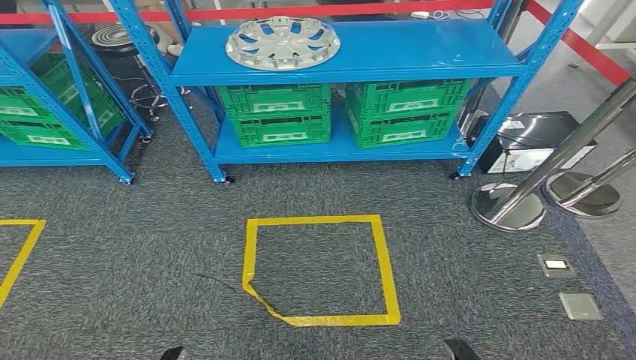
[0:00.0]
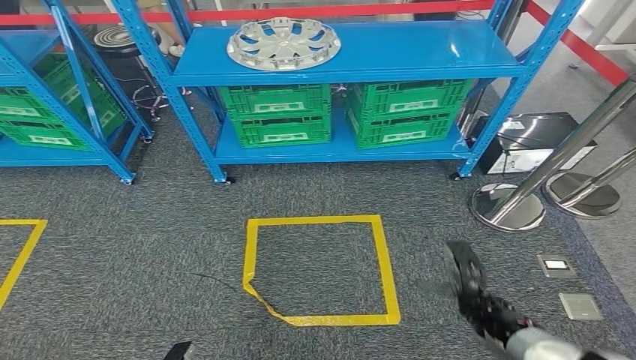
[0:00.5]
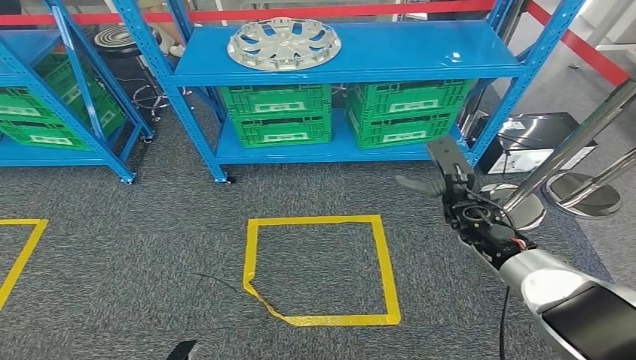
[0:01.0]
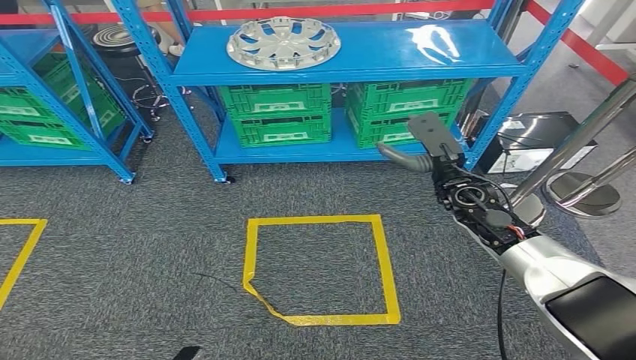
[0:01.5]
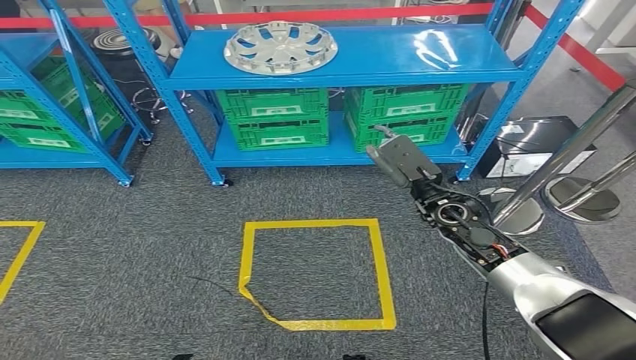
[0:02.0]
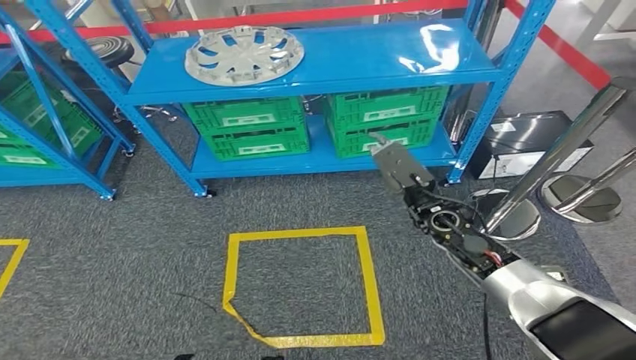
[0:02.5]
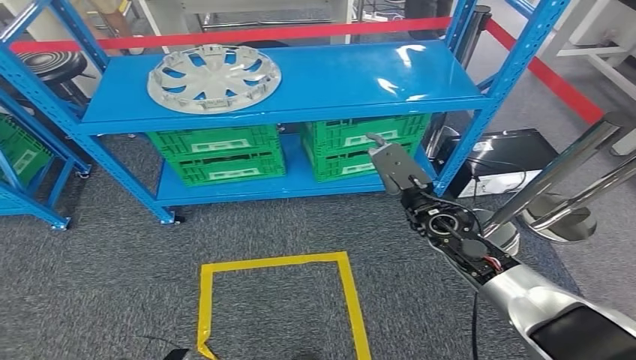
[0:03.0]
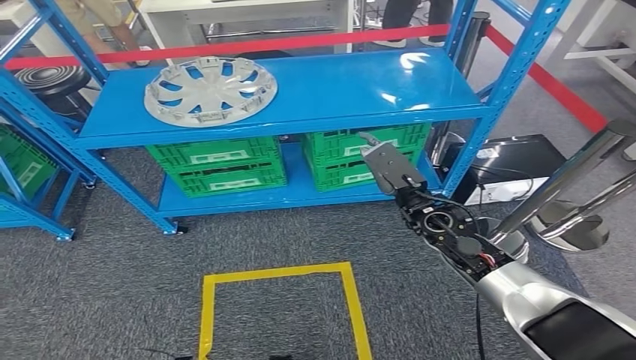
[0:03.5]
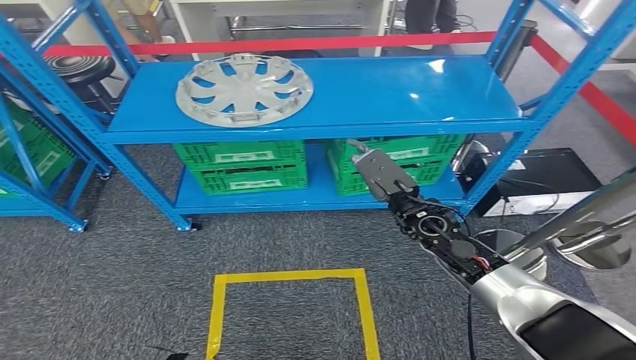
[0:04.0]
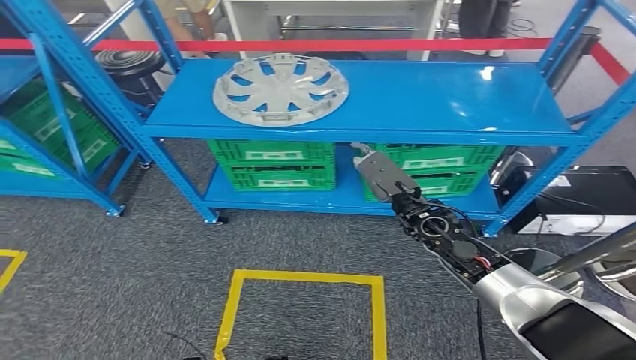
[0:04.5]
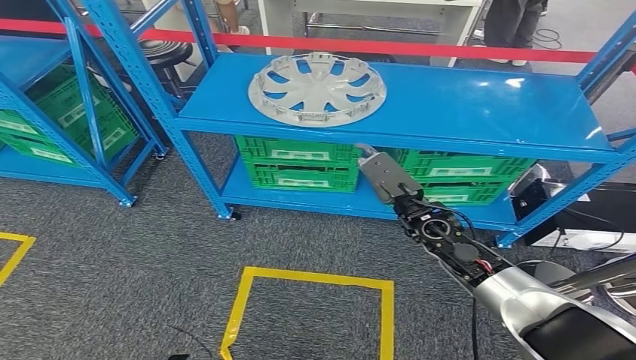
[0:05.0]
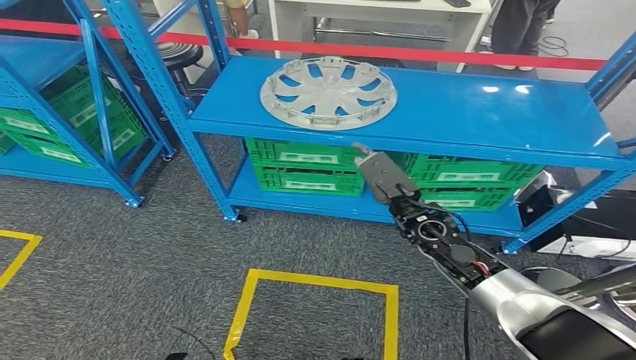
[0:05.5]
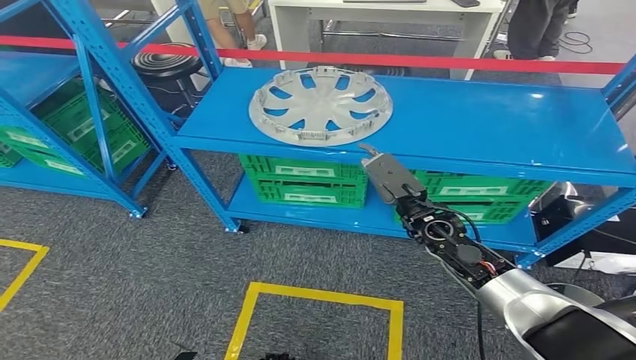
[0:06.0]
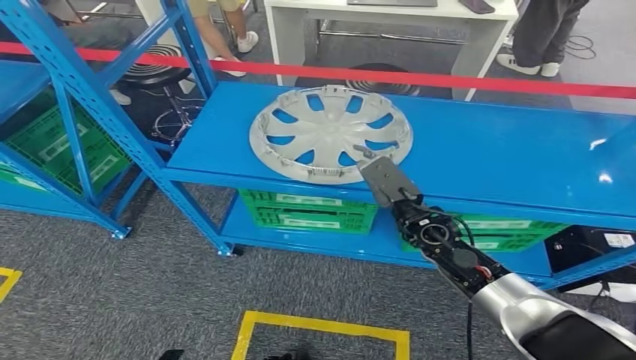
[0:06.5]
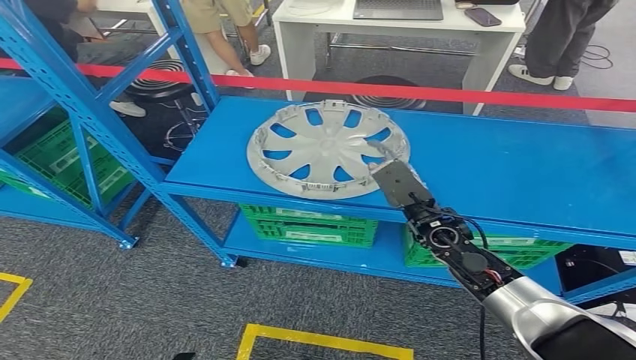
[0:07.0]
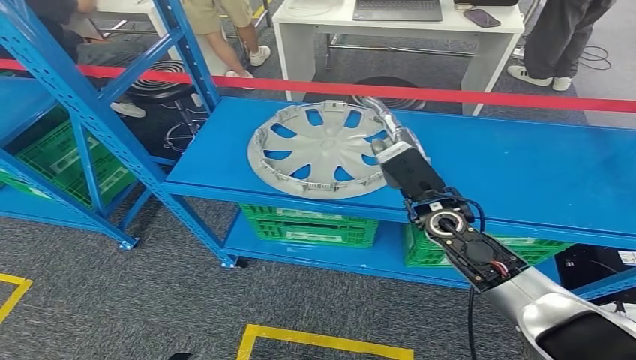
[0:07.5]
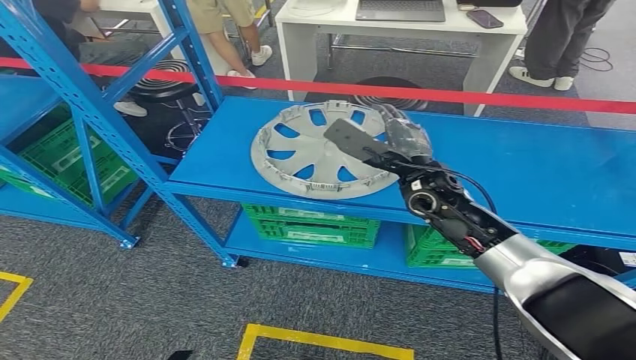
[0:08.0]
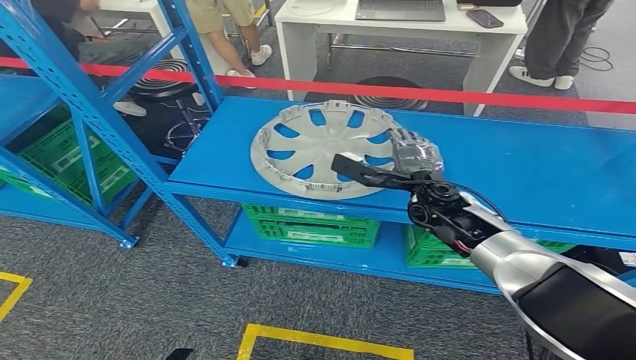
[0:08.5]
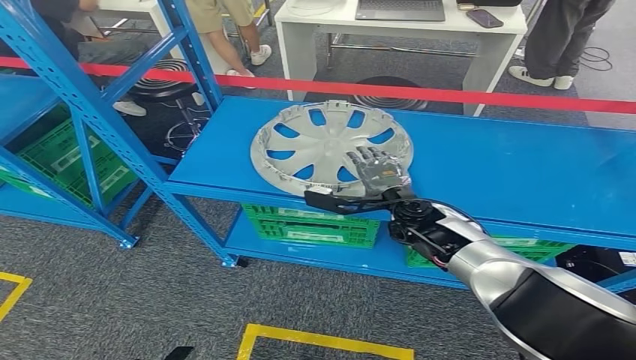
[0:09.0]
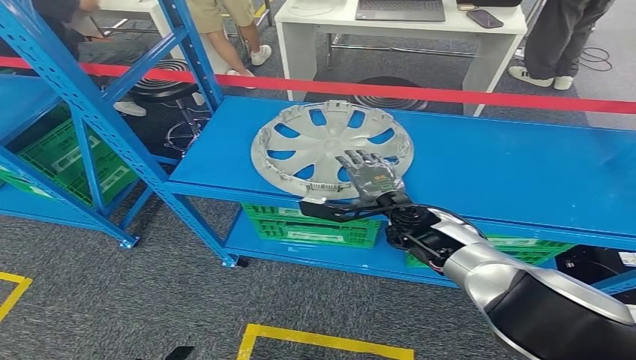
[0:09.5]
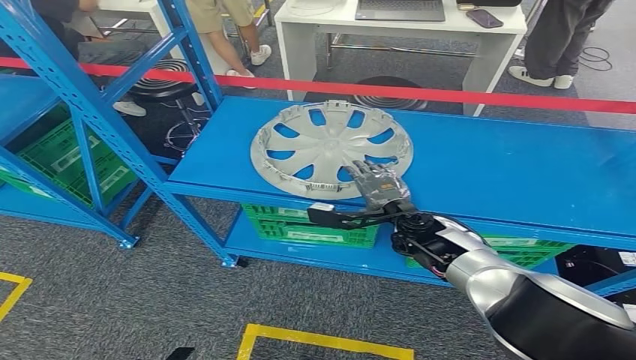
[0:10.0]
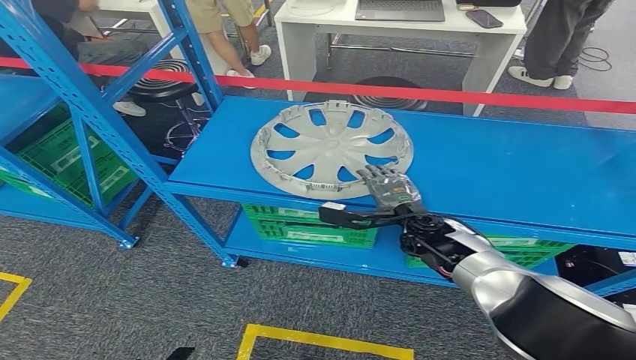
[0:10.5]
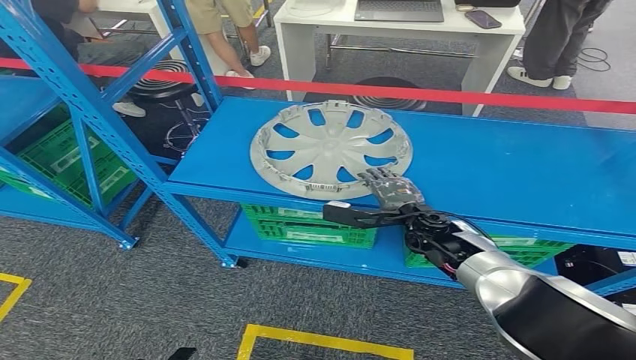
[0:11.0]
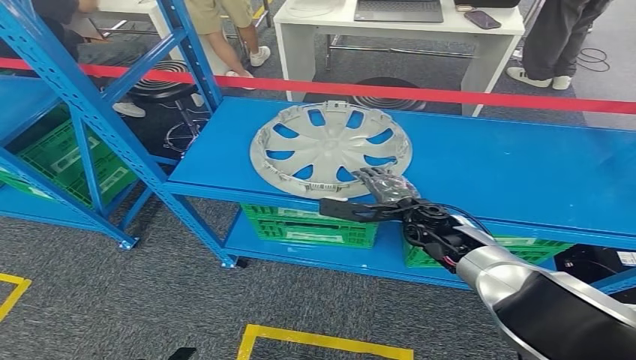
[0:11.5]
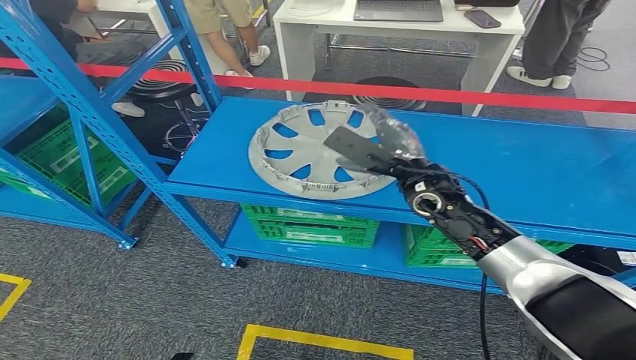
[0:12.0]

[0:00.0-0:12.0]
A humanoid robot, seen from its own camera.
0:08.0 to 0:10.0: The right hand travels downward by approximately 10 cm.
0:10.0 to 0:12.0: The right hand goes about 10 cm upward.

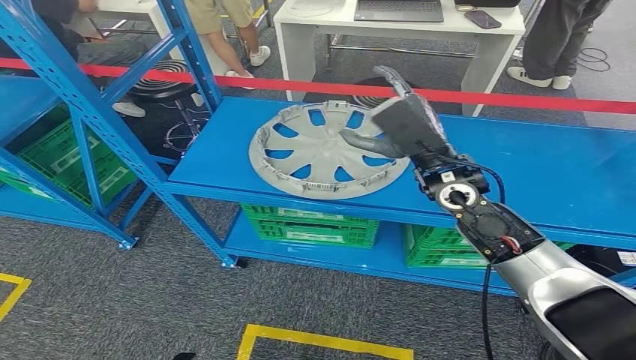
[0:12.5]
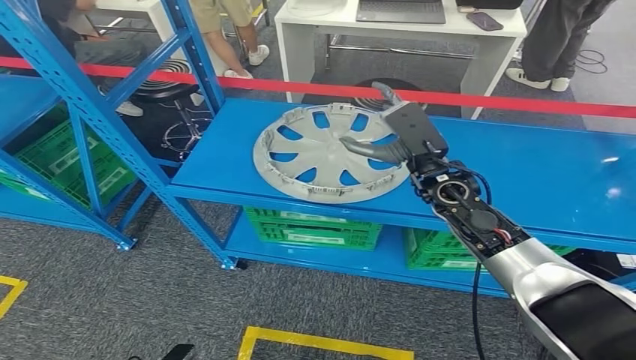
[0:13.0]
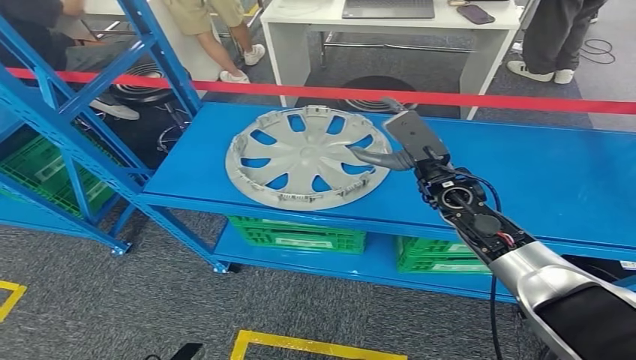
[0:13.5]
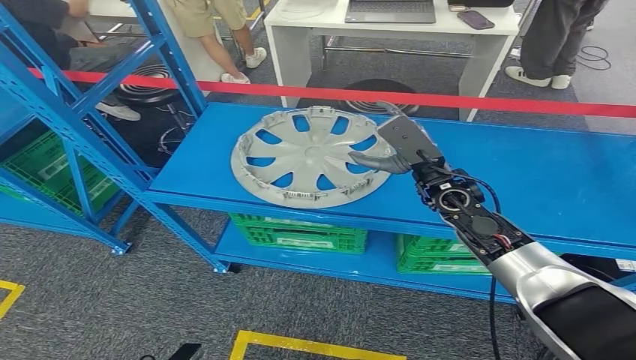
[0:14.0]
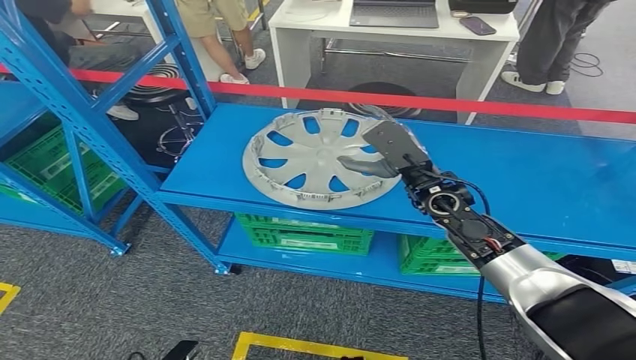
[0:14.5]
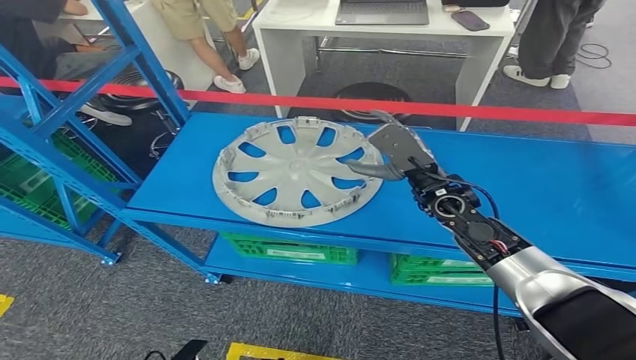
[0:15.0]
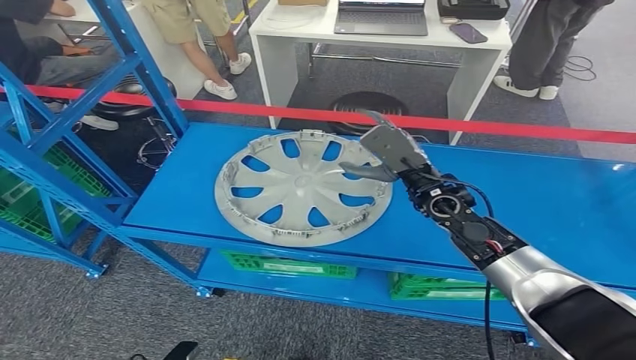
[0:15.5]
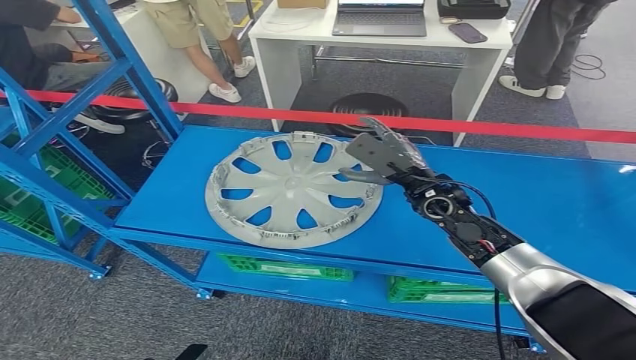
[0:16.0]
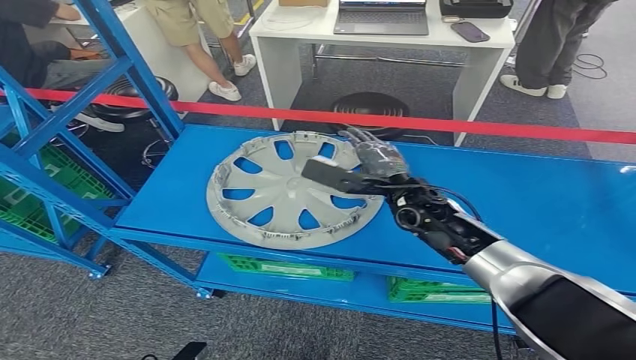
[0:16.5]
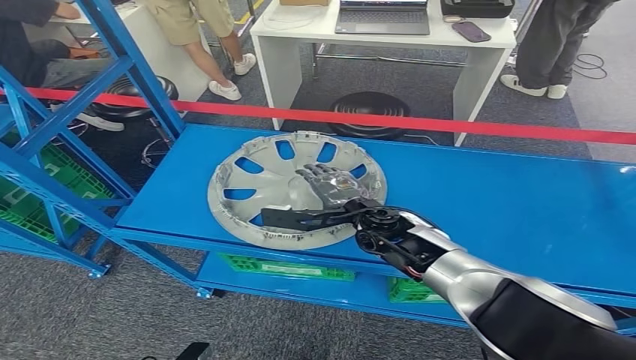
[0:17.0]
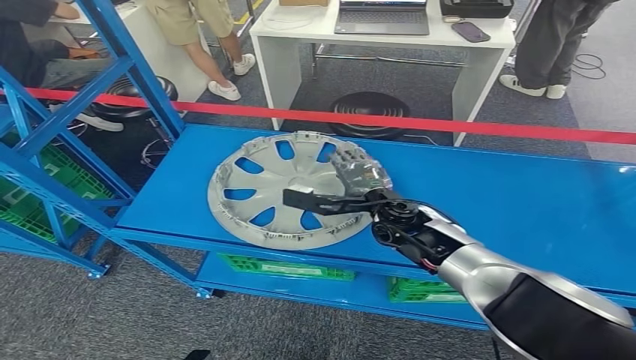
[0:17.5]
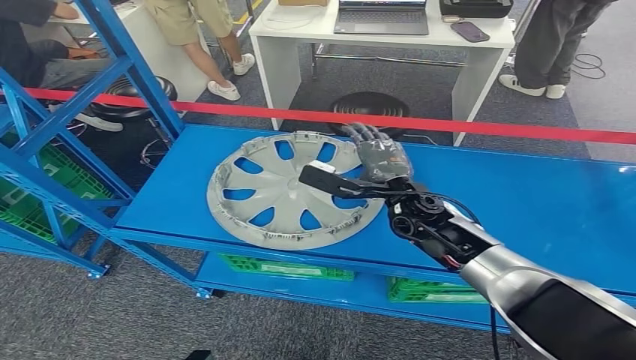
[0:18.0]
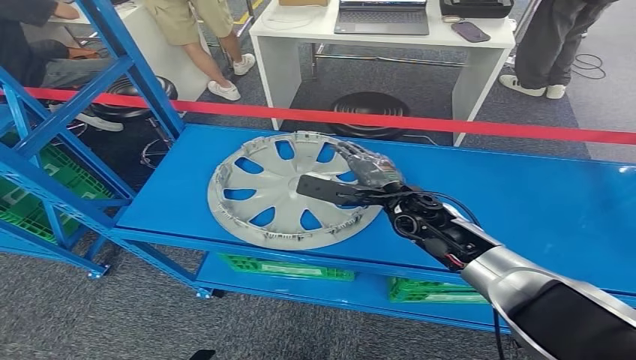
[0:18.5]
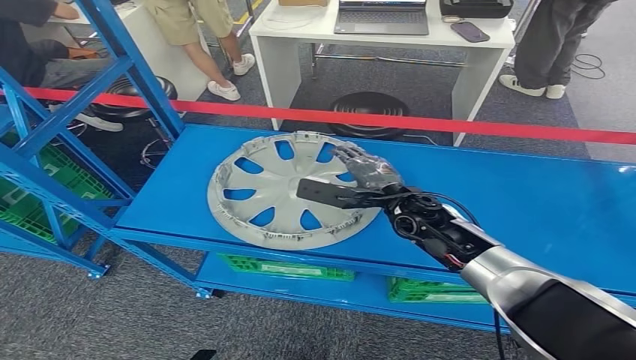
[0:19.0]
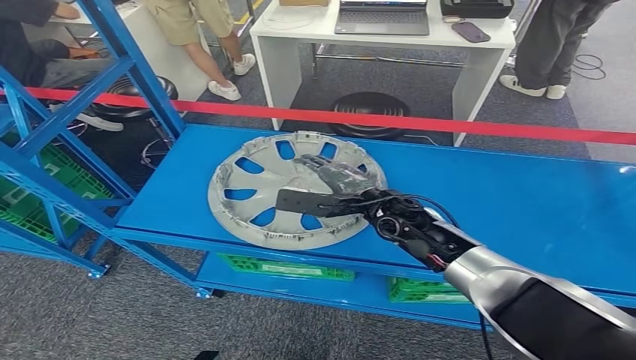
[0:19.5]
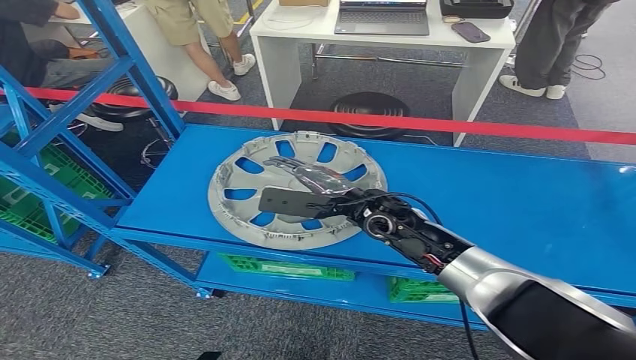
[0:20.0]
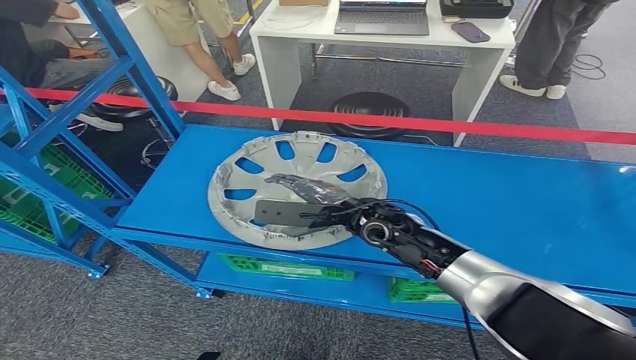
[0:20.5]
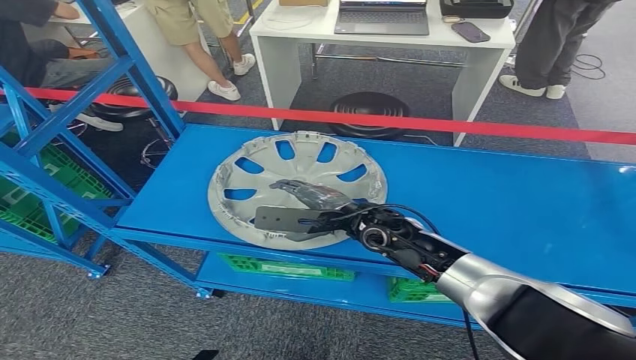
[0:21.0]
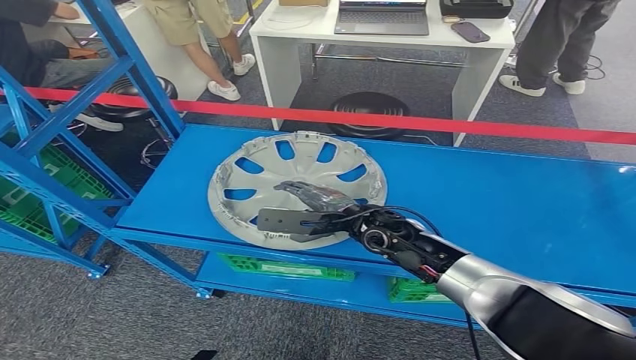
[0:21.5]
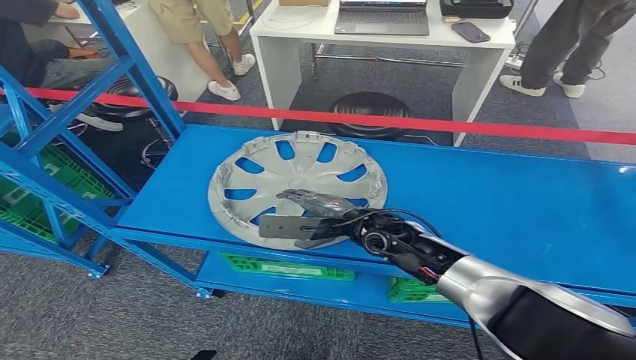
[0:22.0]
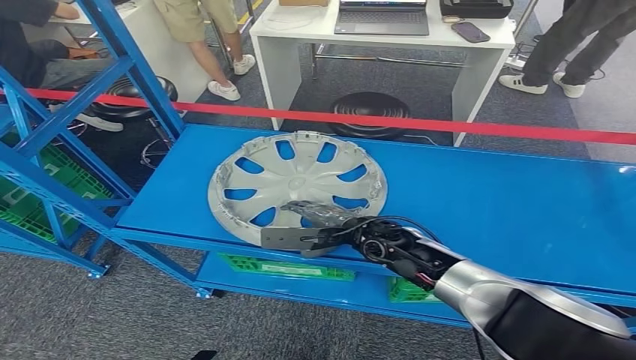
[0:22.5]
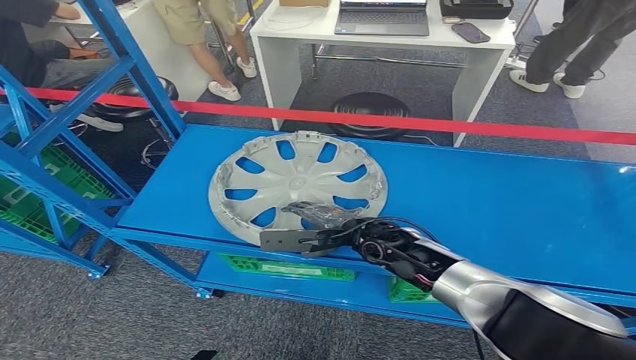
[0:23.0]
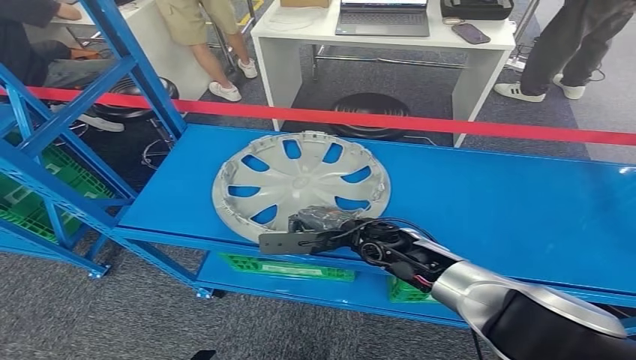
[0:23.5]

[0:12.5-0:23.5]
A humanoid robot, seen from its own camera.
0:18.0 to 0:20.0: The right hand ends up about 5 cm from where it was.
0:20.0 to 0:21.5: The hands move only a little.
0:21.5 to 0:23.5: The hands move only a little.
